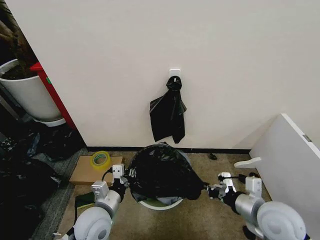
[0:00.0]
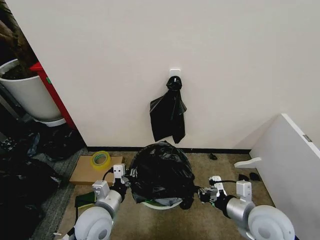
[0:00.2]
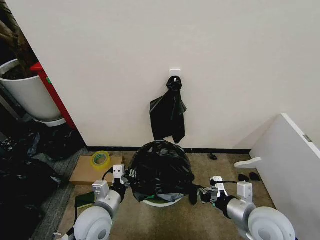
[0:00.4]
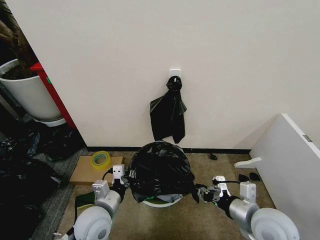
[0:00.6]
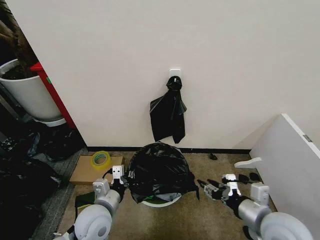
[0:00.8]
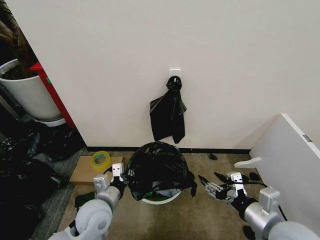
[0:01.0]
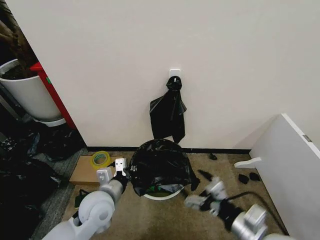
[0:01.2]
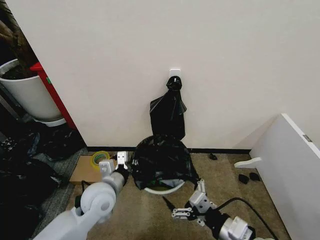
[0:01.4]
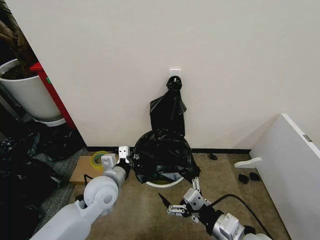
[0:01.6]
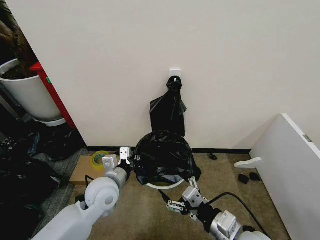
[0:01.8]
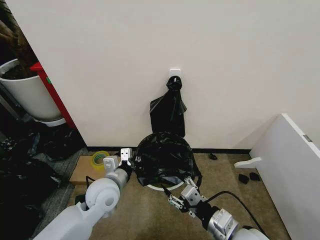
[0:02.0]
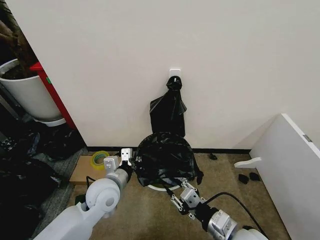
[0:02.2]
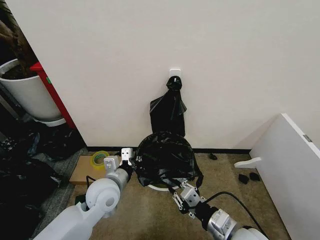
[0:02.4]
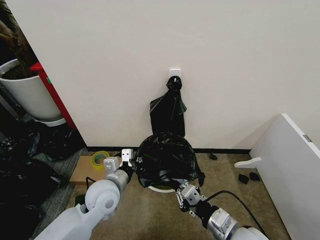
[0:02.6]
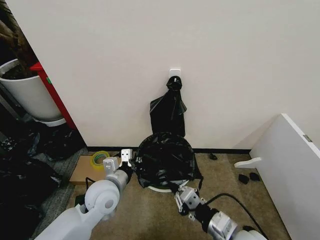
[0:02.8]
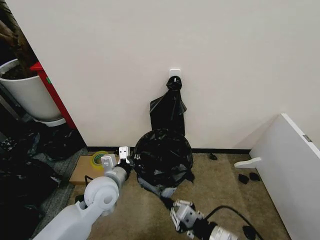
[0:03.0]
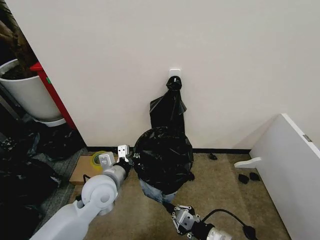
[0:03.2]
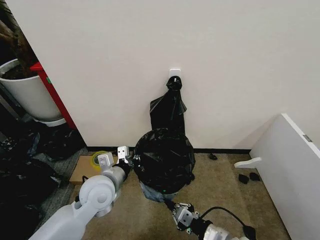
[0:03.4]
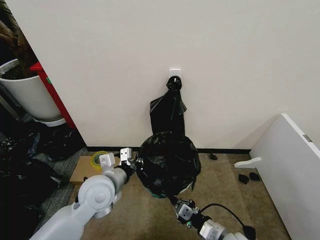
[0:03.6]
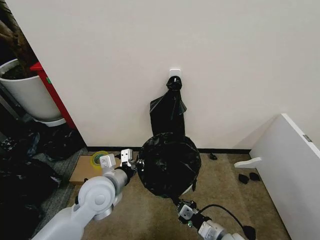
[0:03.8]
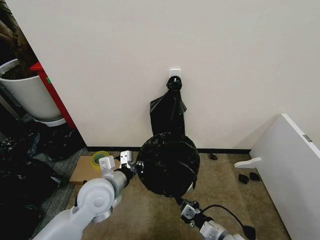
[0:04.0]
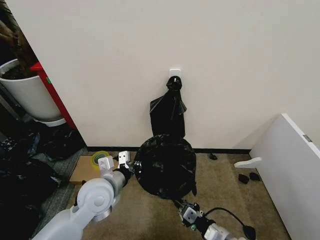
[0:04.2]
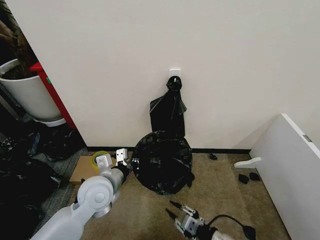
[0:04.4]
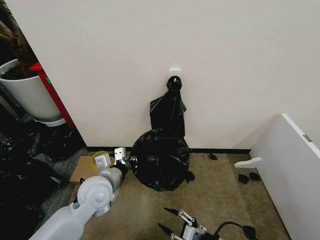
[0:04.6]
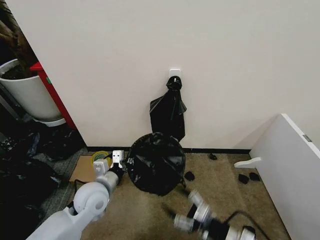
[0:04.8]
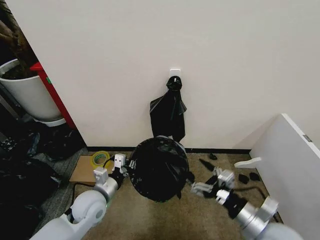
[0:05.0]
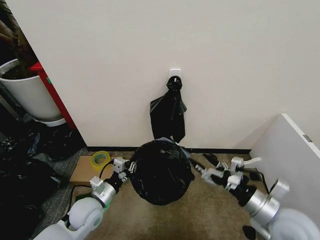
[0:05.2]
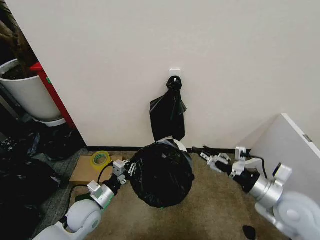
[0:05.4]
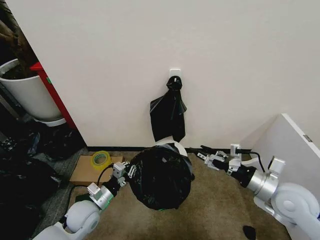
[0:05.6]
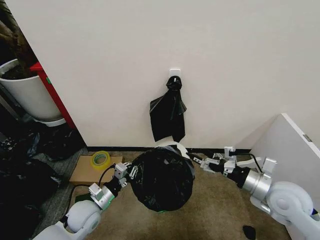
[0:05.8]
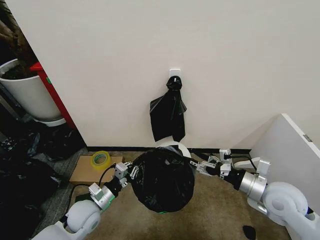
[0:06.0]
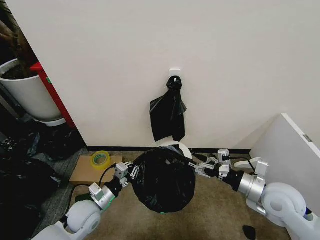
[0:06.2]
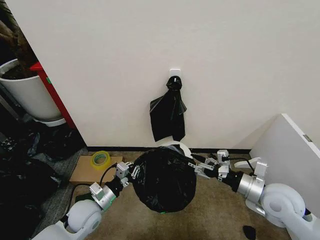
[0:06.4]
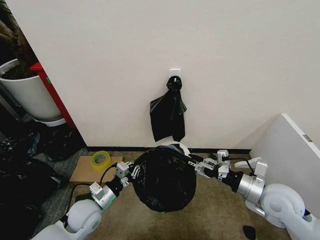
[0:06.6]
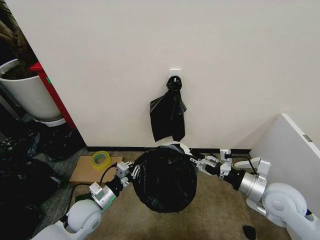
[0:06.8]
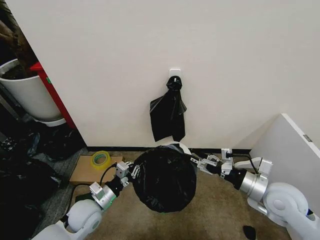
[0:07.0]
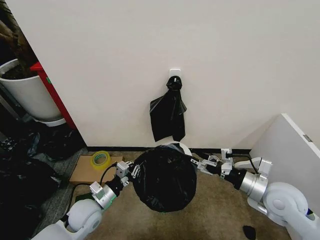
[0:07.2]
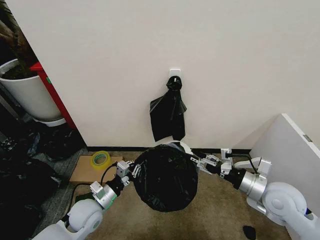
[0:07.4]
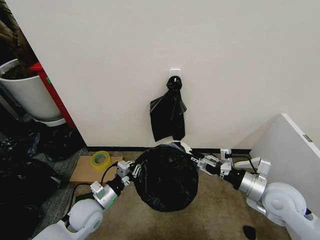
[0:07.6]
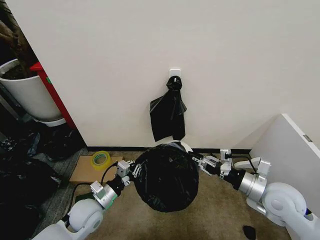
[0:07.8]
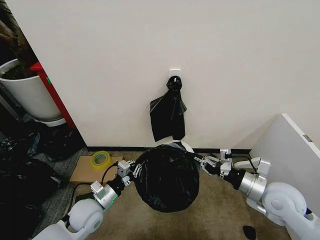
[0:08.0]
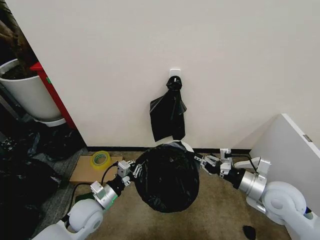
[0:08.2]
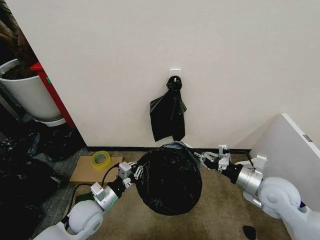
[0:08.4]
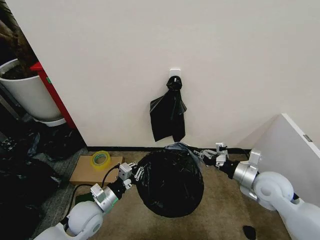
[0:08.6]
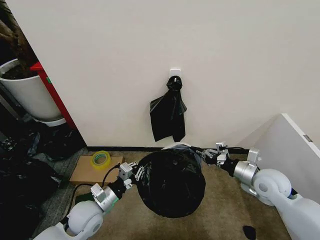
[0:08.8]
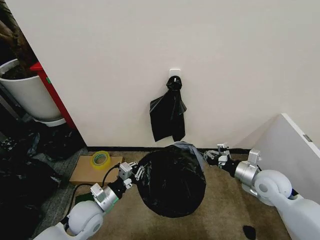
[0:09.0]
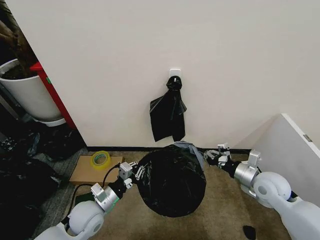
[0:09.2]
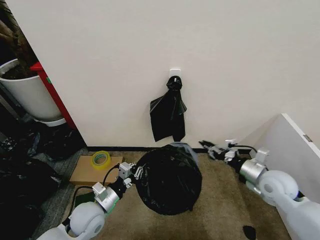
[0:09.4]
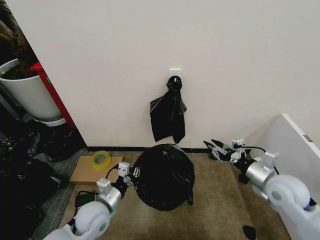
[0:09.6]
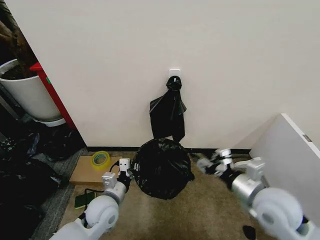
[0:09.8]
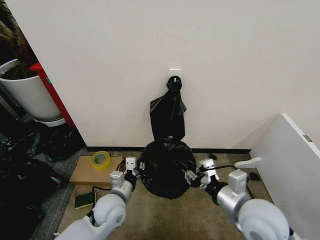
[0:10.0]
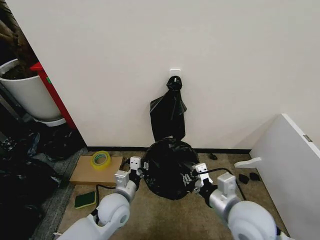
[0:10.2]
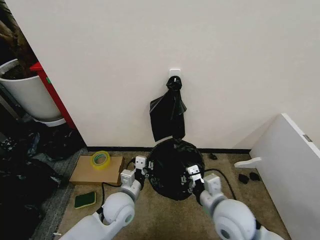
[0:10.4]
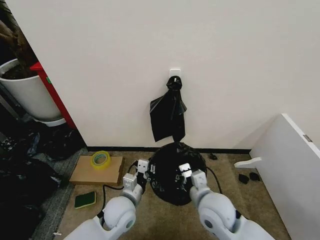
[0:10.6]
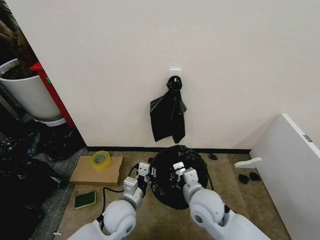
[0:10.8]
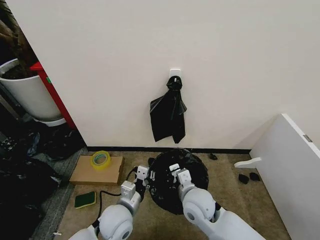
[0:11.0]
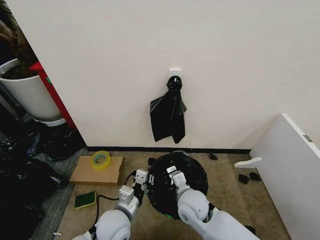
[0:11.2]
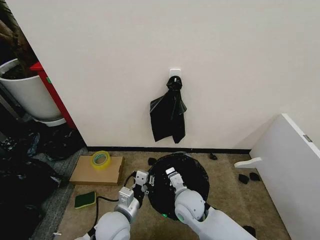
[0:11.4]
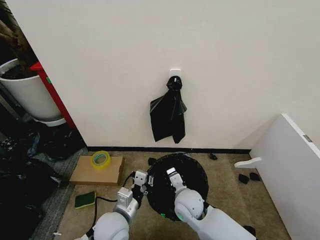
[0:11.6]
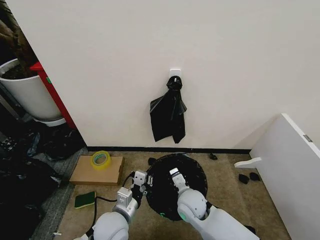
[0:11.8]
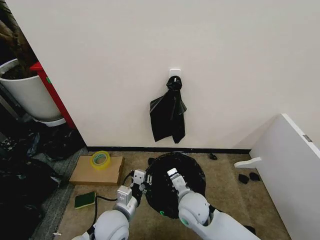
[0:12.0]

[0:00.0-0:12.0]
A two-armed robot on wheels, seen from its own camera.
Task of the whole recording: Place the garbage bag over the trash bin.
0:00.0 to 0:01.6: The left gripper shifts some 5 cm forward. Meanwhile the right gripper moves to the left and backward, roughly 10 cm, and opens up.
0:01.6 to 0:03.0: The right gripper closes its fingers.
0:03.0 to 0:04.4: The right gripper is displaced downward by roughly 10 cm.
0:04.4 to 0:06.0: The left gripper is displaced downward and to the left by roughly 15 cm. Meanwhile the right gripper goes roughly 20 cm upward, forward and to the right, and opens its fingers.
0:06.0 to 0:07.6: The right gripper closes up.
0:07.6 to 0:09.0: The right gripper goes some 5 cm forward, and closes its fingers.
0:09.0 to 0:10.4: The left gripper goes approximately 10 cm to the right. The right gripper is displaced to the left and backward by approximately 20 cm, and opens and closes again.
0:10.4 to 0:12.0: The right gripper shifts roughly 15 cm downward, to the left and forward, while the left gripper moves backward, approximately 5 cm.

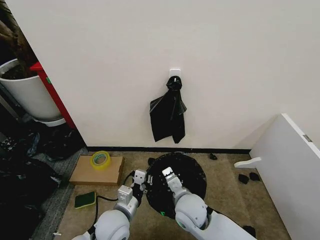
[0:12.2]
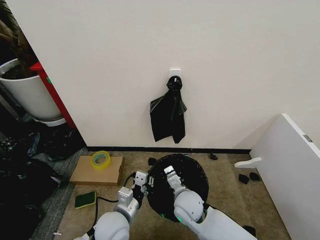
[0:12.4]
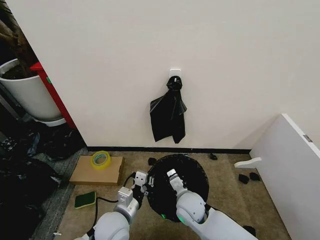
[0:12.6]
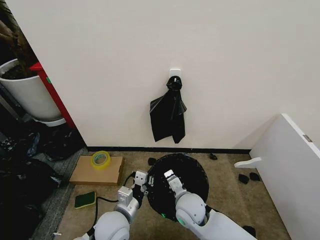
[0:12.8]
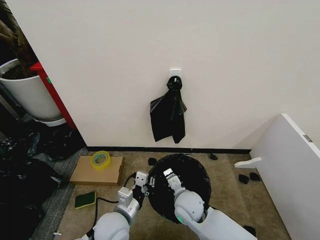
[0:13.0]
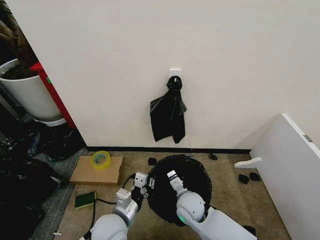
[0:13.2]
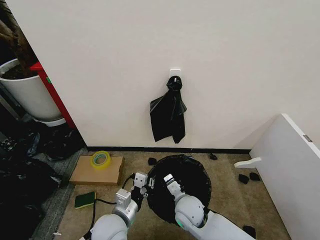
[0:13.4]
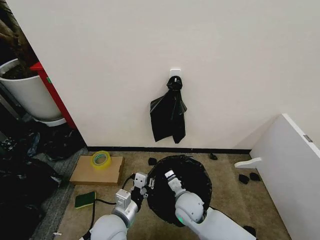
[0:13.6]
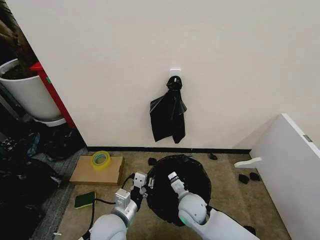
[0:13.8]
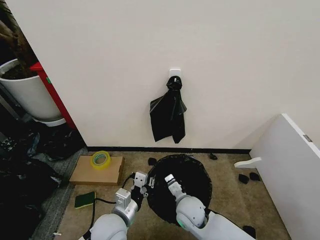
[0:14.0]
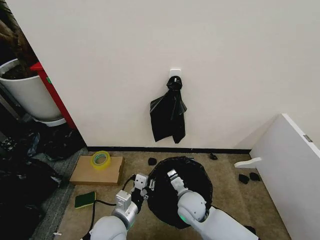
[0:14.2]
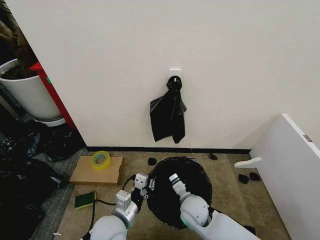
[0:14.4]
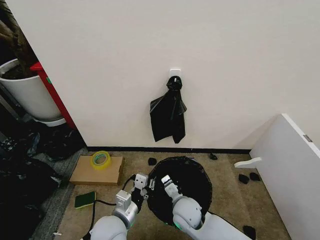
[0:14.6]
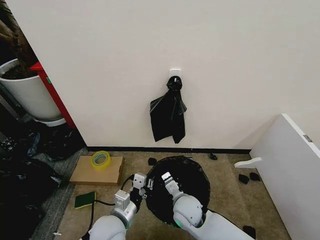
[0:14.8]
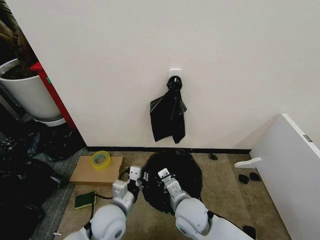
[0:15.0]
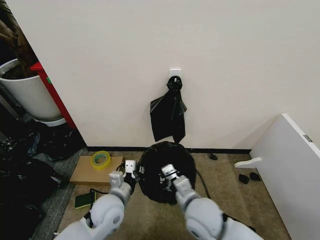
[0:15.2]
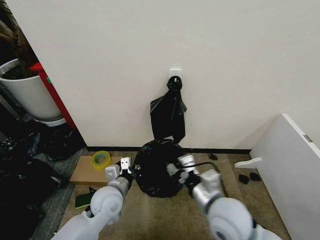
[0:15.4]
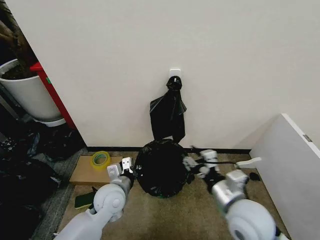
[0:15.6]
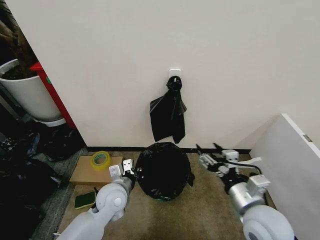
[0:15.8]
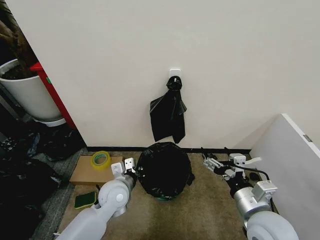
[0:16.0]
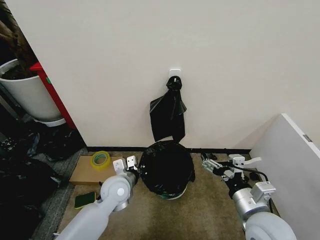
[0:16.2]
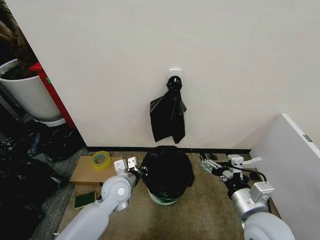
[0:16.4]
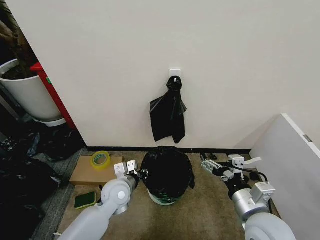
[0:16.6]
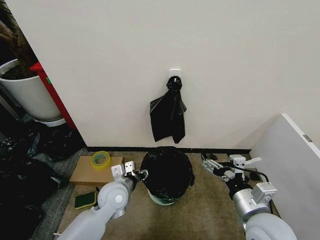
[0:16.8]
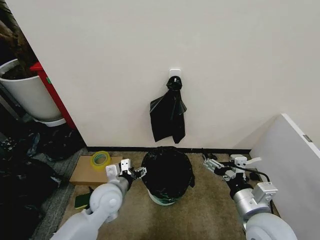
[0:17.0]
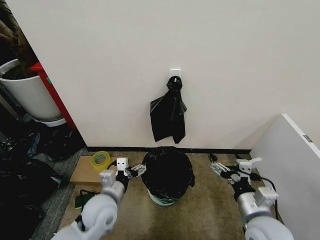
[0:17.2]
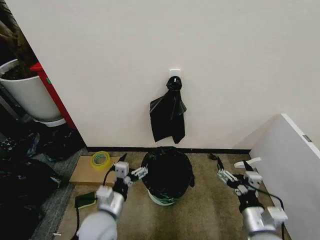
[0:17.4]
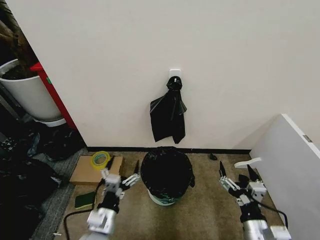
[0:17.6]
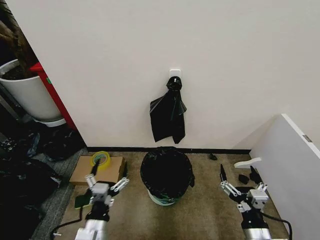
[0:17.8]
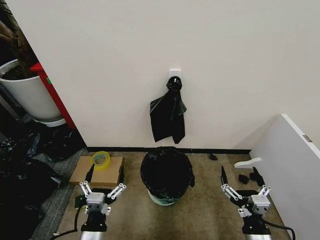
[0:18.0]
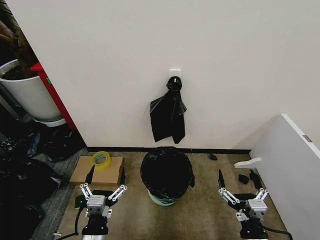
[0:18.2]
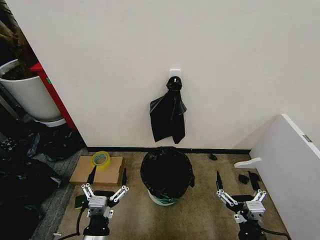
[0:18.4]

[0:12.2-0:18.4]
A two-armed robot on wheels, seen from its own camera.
Task of the whole recording: Place the garbage bag over the trash bin.
0:12.2 to 0:13.8: The right gripper shifts about 5 cm downward.
0:13.8 to 0:15.4: The left gripper goes some 10 cm forward; the right gripper travels upward and backward by about 15 cm.
0:15.4 to 0:16.8: The left gripper opens up; the right gripper goes roughly 10 cm to the right, and opens its fingers.
0:16.8 to 0:18.4: The left gripper shifts some 20 cm backward, and opens up. The right gripper is displaced downward and backward by some 15 cm.
